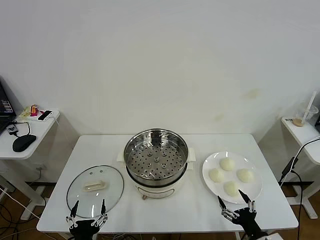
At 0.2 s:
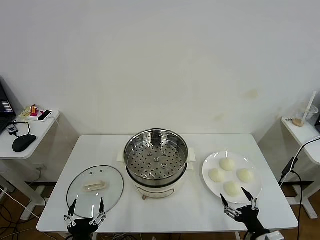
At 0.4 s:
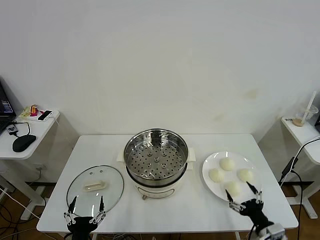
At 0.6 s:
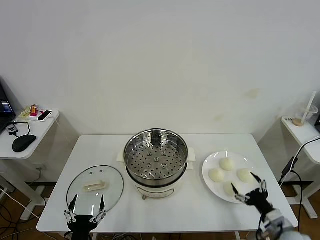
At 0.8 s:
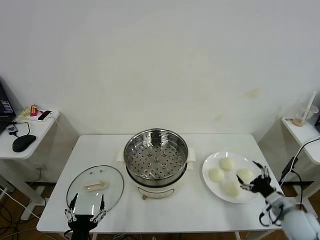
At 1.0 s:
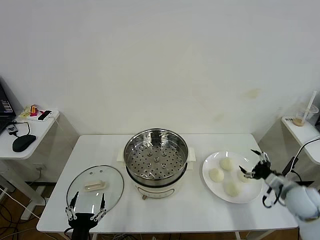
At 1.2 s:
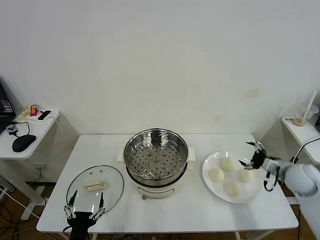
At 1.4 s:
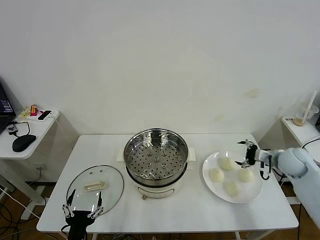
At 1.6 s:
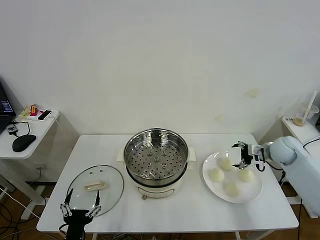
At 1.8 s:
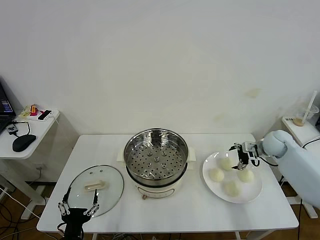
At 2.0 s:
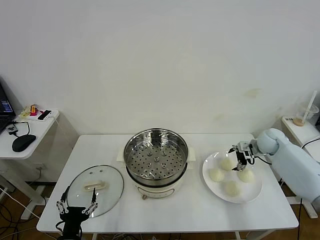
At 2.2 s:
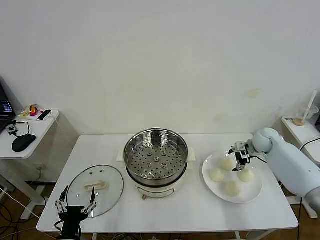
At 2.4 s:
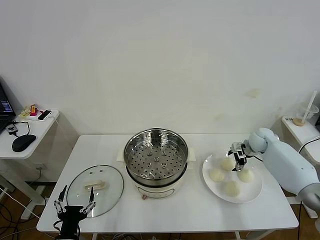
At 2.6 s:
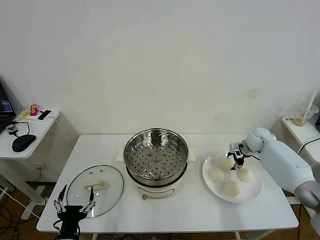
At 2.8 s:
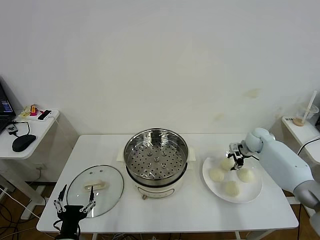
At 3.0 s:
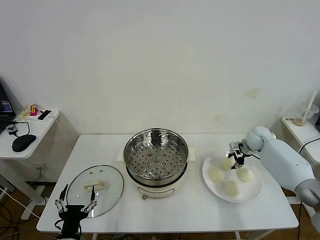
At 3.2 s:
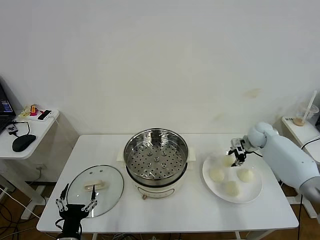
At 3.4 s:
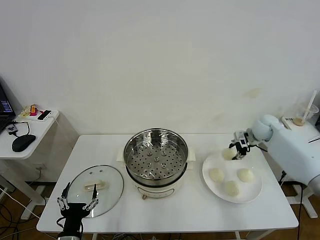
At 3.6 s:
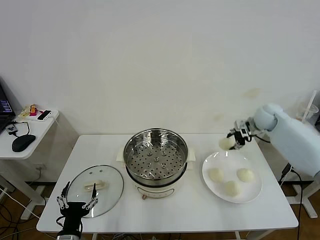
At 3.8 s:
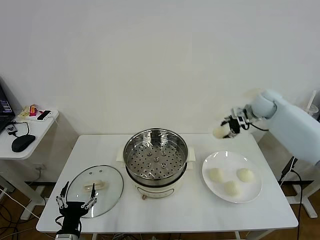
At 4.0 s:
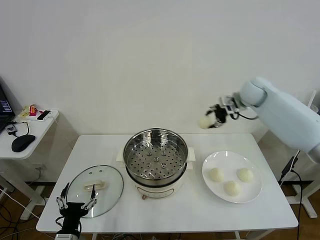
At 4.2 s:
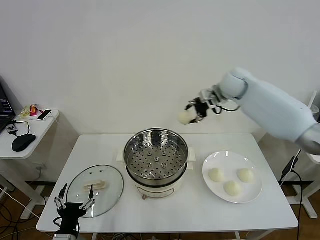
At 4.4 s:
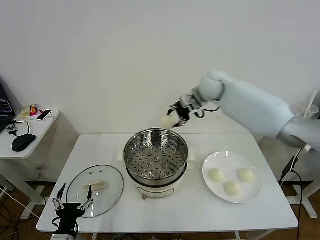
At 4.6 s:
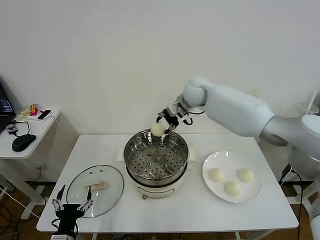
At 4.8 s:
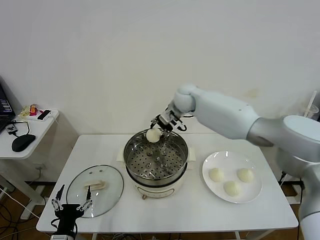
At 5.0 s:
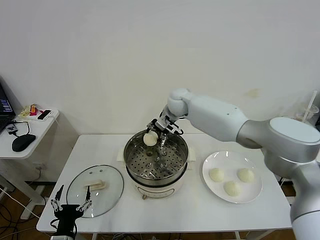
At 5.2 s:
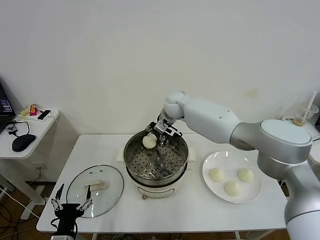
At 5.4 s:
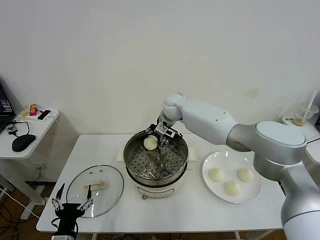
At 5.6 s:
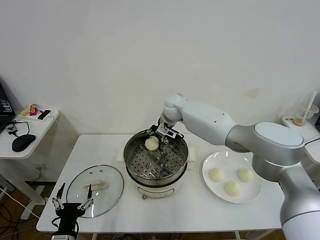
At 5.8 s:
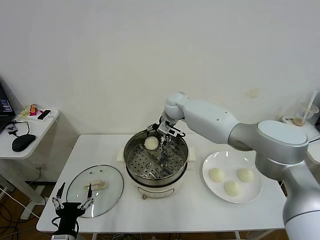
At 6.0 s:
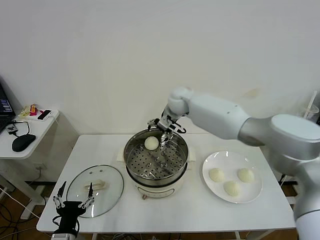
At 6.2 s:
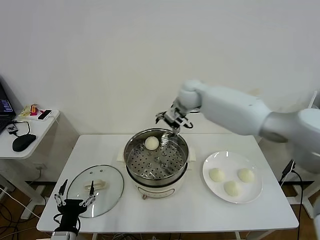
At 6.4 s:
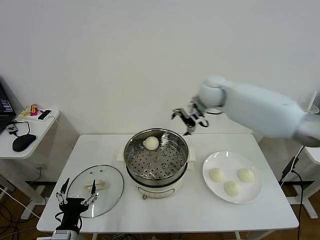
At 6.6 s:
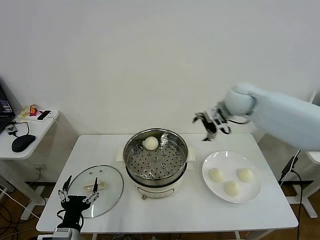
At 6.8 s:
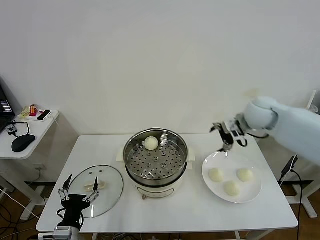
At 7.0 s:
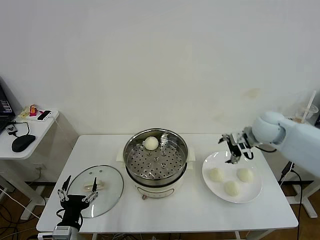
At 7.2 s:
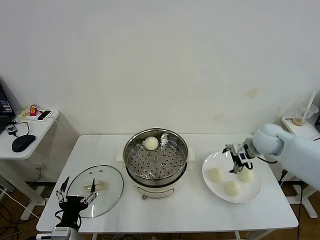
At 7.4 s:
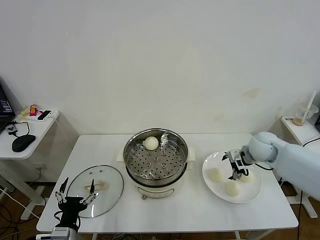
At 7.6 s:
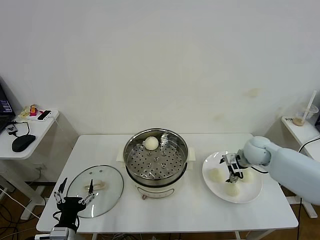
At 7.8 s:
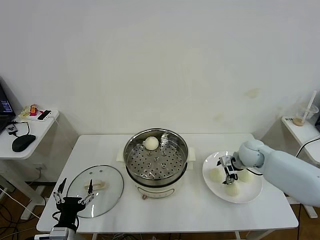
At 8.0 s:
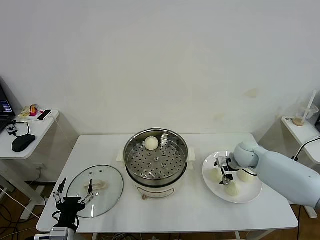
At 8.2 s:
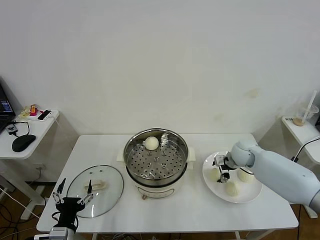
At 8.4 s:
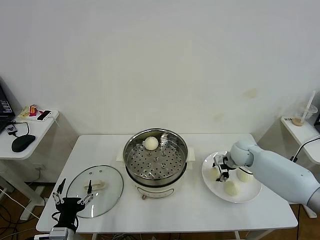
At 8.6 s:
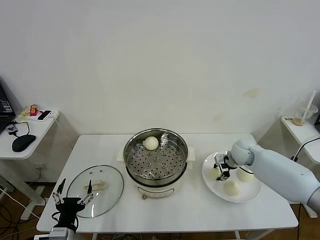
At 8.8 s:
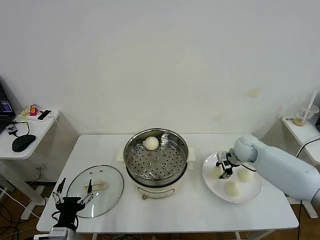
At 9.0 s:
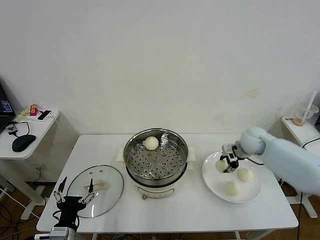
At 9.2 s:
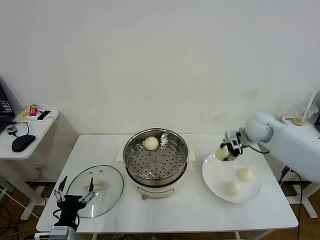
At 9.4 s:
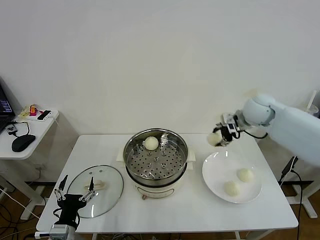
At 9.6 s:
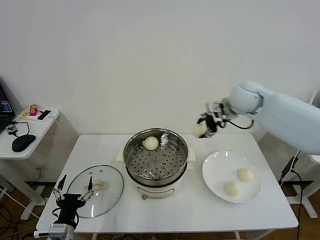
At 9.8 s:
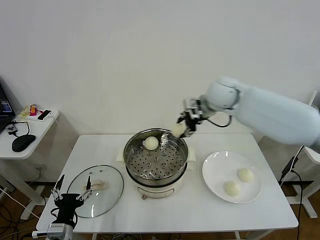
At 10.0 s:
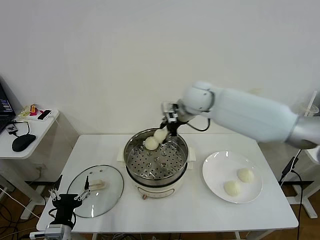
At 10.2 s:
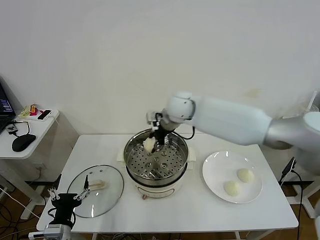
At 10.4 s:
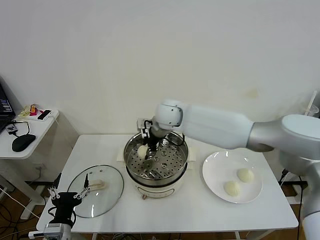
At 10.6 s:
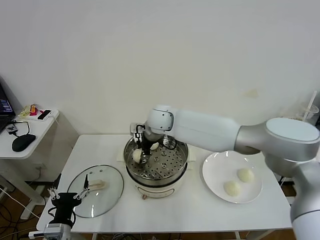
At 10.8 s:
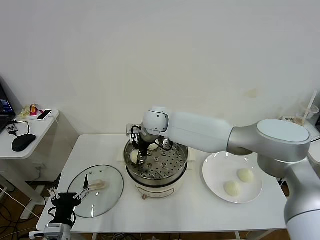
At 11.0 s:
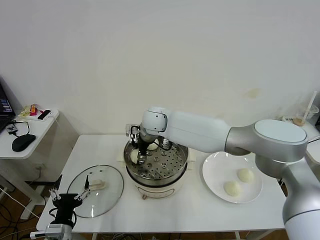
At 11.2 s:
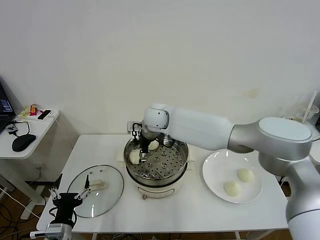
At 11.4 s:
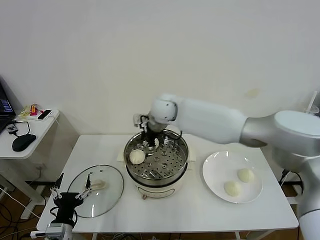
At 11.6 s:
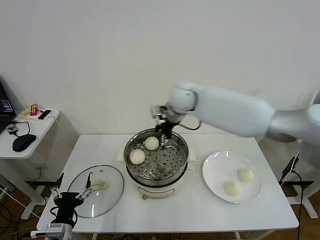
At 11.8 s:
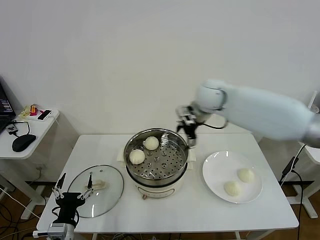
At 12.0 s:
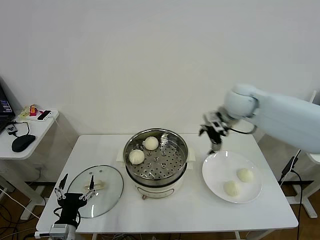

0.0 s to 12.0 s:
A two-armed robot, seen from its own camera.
Task of the whole recording: take steamed baozi put them in steamer then cover it.
Step, 0.0 to 2.8 s: Grasp the baozi in the plate with right gripper.
Step, 3.0 to 5.8 s: Place the baozi on the steamer with right gripper.
Step, 6.0 to 8.4 s: Grasp the baozi in the plate with right gripper.
Step, 8.8 to 11.2 s: Place the baozi on the steamer with right gripper.
1.6 to 3.0 s: The right gripper heads forward, covering about 5 cm, and closes.
3.0 to 4.4 s: The right gripper shifts approximately 30 cm to the left and upward.
4.4 to 6.0 s: The right gripper travels downward and back again, approximately 10 cm each way, and opens up.
6.0 to 7.6 s: The right gripper goes approximately 30 cm to the right, downward and backward.
7.6 to 9.0 s: The right gripper is displaced upward by about 5 cm, and closes.
9.0 to 10.4 s: The right gripper moves to the left, some 35 cm.
10.4 to 12.0 s: The right gripper moves to the right, some 25 cm, and opens.

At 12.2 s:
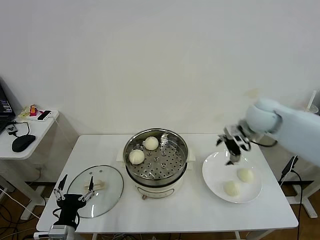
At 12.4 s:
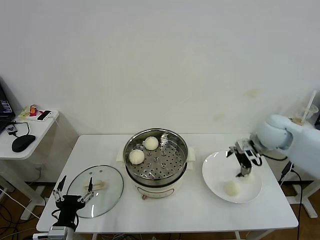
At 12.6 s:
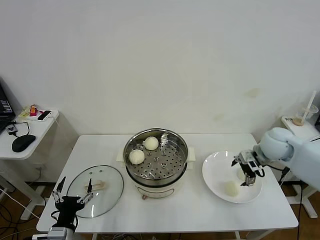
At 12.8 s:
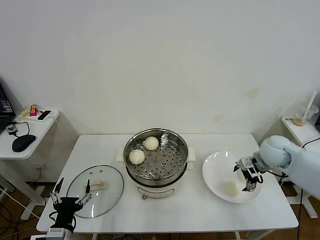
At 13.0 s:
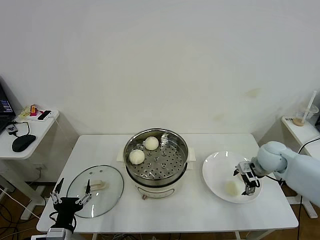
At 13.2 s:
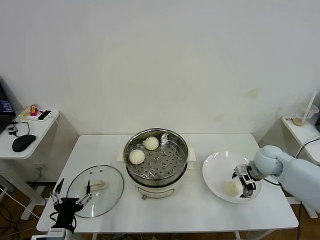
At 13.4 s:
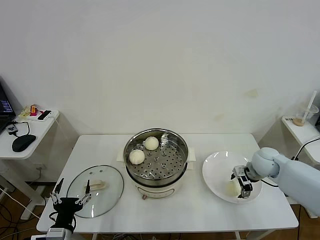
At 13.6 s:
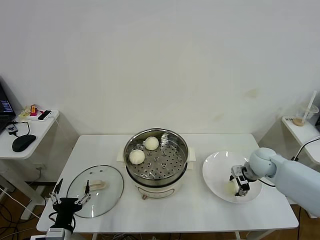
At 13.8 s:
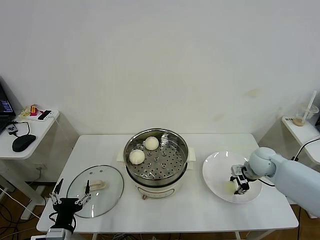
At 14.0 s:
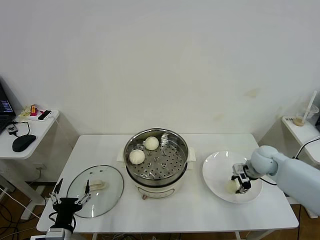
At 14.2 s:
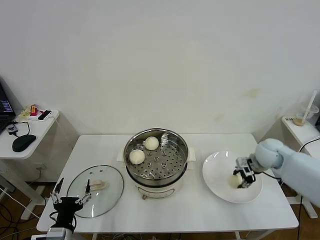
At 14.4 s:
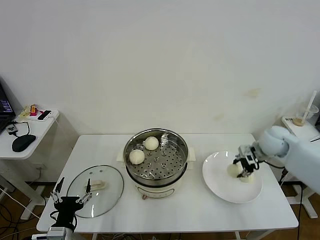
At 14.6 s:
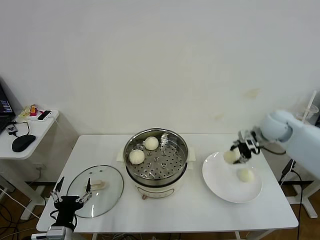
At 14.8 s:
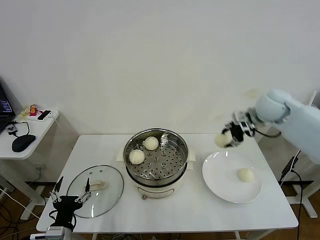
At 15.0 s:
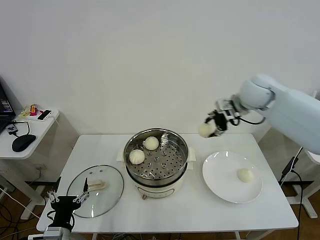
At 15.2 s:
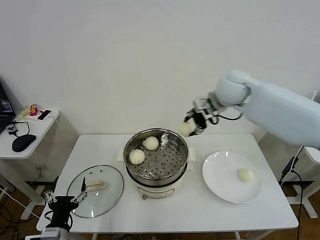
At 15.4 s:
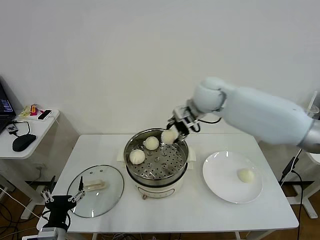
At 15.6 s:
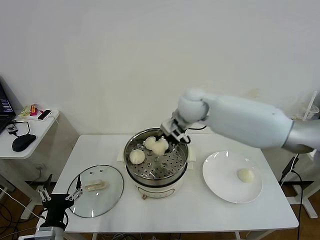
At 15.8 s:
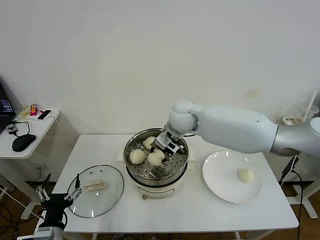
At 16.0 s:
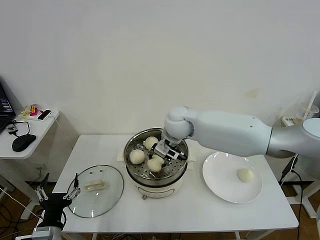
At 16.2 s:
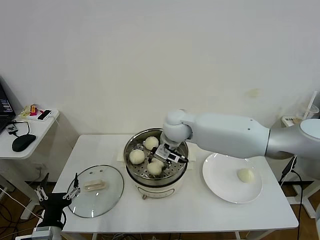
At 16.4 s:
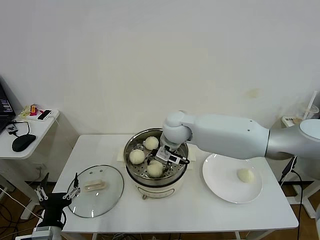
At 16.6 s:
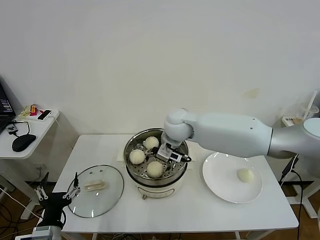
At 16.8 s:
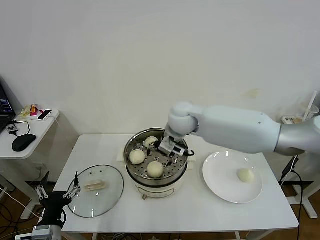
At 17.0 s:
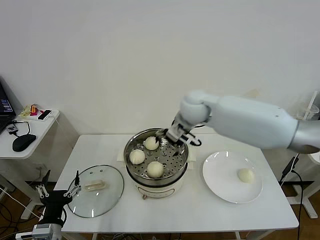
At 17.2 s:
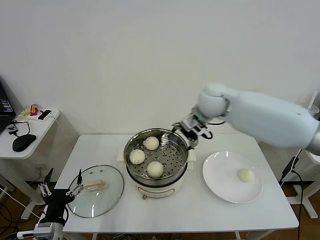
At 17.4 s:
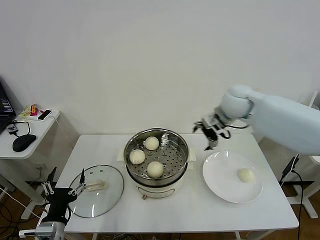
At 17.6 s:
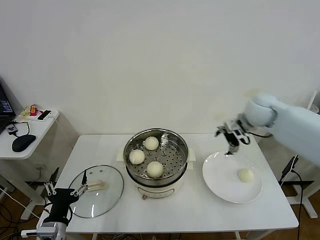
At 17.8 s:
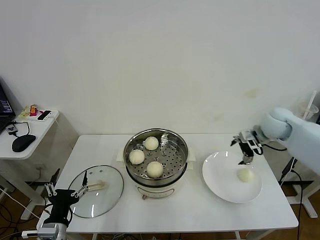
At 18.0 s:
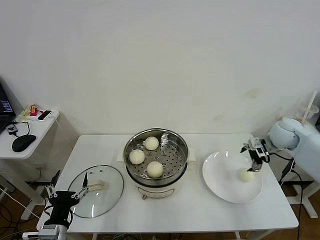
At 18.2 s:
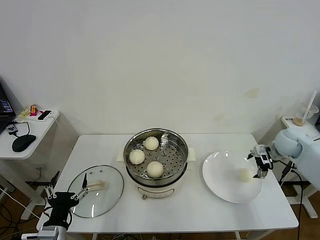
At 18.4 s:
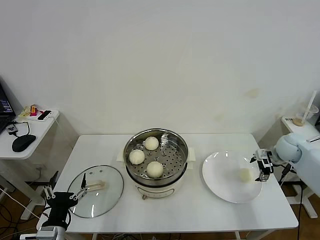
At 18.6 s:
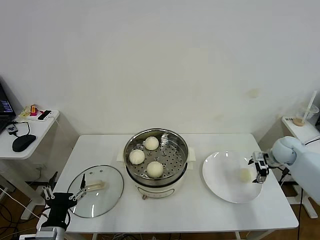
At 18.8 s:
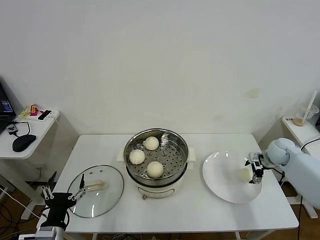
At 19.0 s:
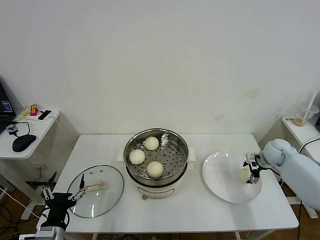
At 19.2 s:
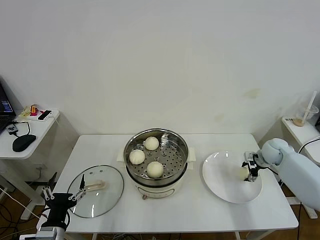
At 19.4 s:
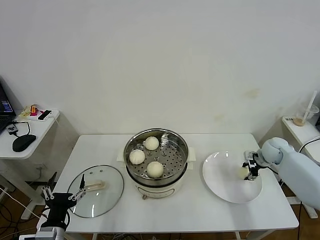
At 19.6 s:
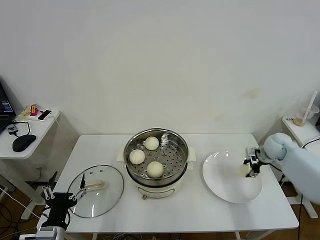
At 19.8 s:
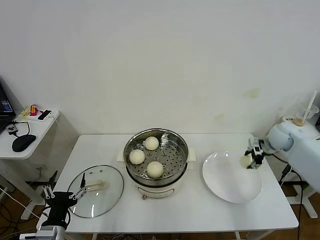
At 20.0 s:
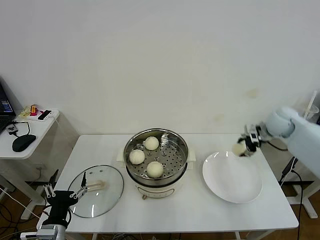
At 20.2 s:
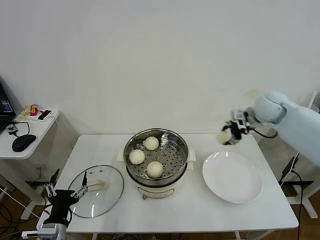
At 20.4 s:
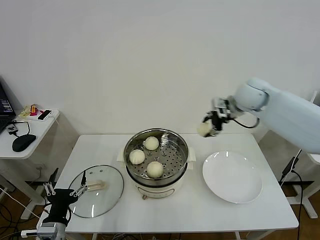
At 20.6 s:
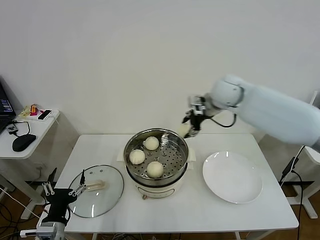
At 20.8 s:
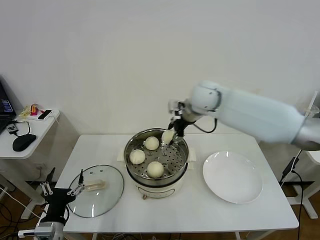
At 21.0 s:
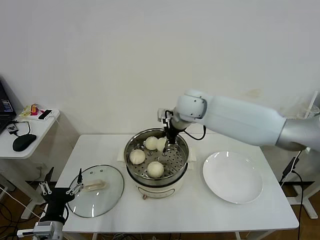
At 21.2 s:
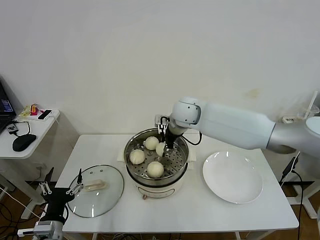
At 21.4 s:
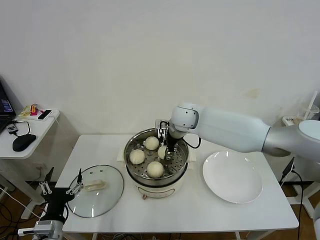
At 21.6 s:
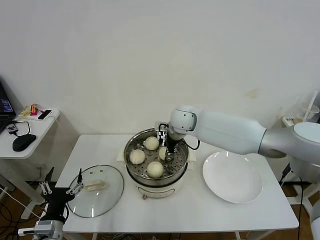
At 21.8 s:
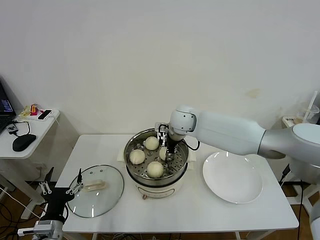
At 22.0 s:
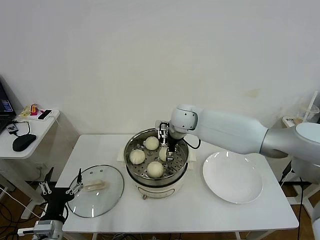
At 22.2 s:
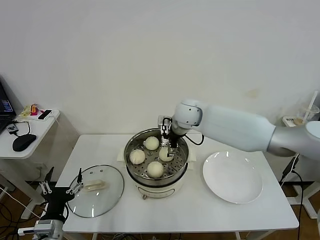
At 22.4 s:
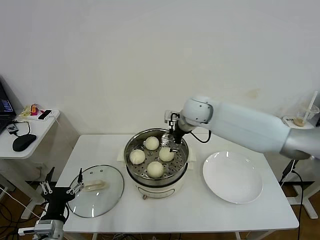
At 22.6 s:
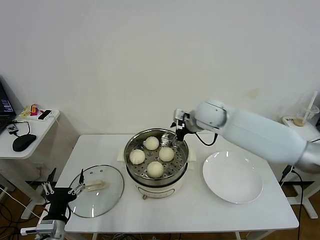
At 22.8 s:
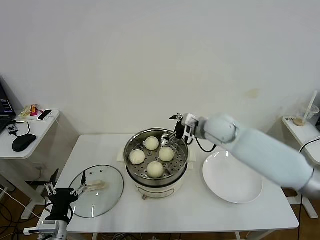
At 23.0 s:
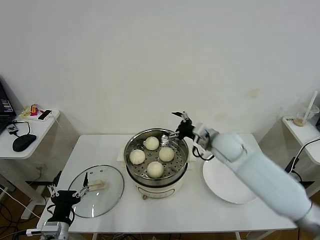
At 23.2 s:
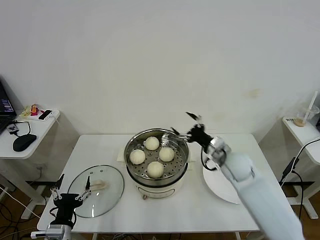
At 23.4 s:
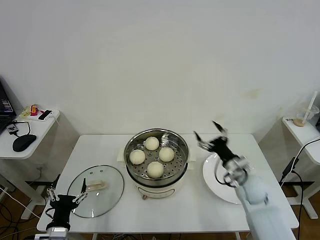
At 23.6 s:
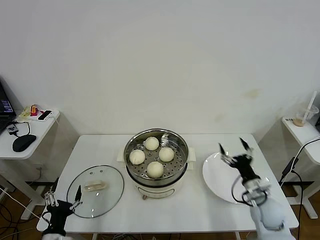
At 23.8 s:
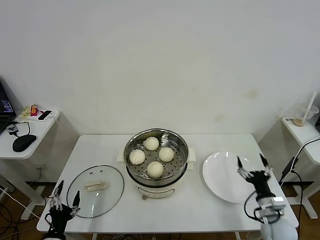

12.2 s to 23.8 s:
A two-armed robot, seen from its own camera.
Task of the whole recording: take steamed baozi put them in steamer then cover it.
Step, 12.2 to 13.8 s: Grasp the baozi in the plate with right gripper.
Step, 14.0 to 16.6 s: Place the baozi on the steamer with right gripper.
Step, 16.8 to 19.4 s: Grasp the baozi in the plate with right gripper.
Step, 19.6 to 22.0 s: Place the baozi on the steamer with right gripper.
12.2 to 13.6 s: The right gripper shifts some 15 cm downward, and closes its fingers.
13.6 to 15.0 s: The right gripper travels upward and to the left by about 25 cm.
15.0 to 16.6 s: The right gripper moves to the left and downward, approximately 20 cm, and opens.
16.6 to 18.0 s: The right gripper goes roughly 35 cm to the right.
18.0 to 19.4 s: The right gripper heads downward, covering about 10 cm, and closes its fingers.
19.4 to 21.0 s: The right gripper heads to the left and upward, covering roughly 40 cm.
21.0 to 22.4 s: The right gripper opens.
22.4 to 23.8 s: The left gripper heads downward, covering some 10 cm, while the right gripper goes about 50 cm backward, downward and to the right.
